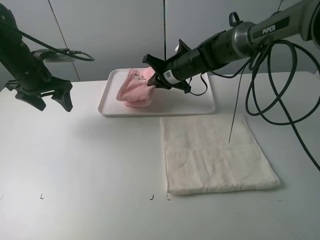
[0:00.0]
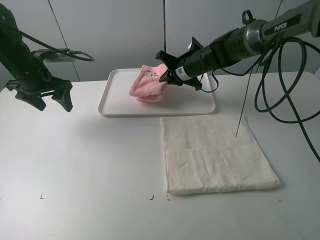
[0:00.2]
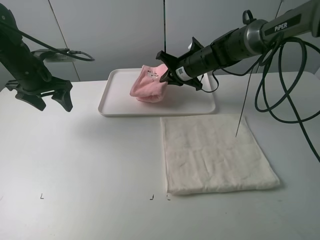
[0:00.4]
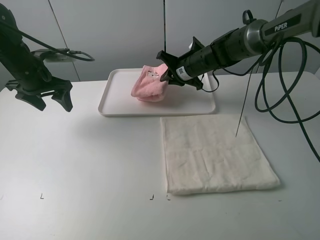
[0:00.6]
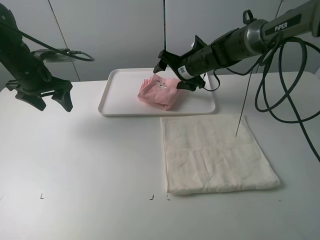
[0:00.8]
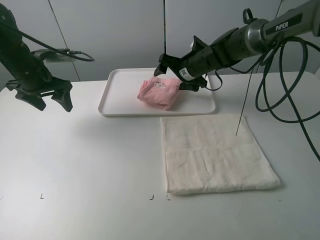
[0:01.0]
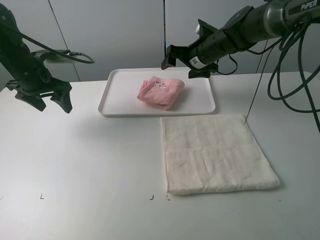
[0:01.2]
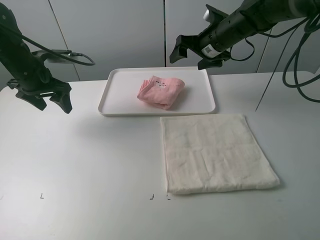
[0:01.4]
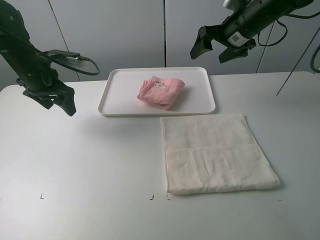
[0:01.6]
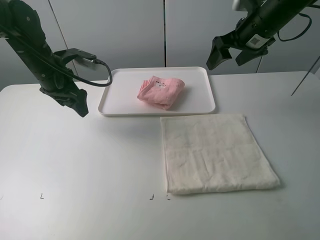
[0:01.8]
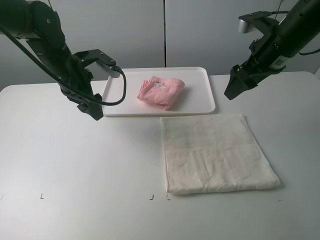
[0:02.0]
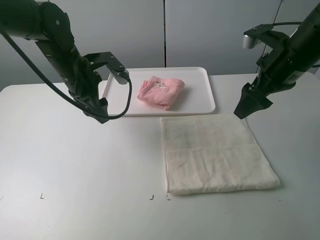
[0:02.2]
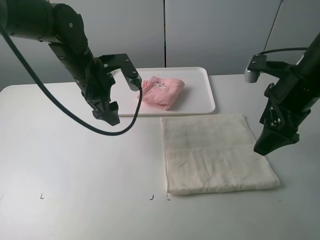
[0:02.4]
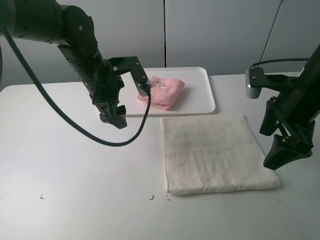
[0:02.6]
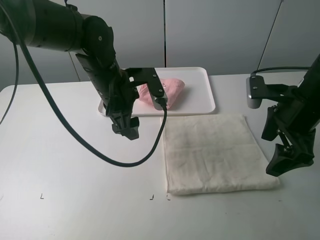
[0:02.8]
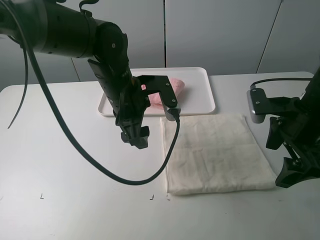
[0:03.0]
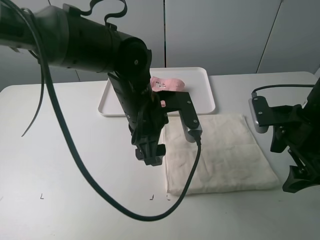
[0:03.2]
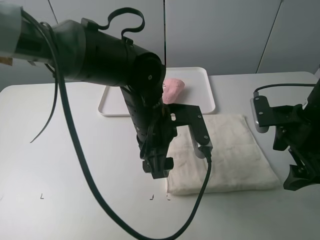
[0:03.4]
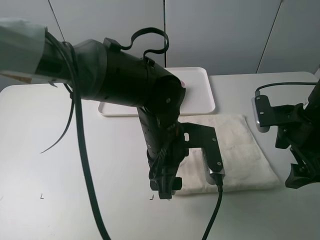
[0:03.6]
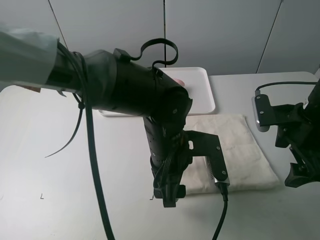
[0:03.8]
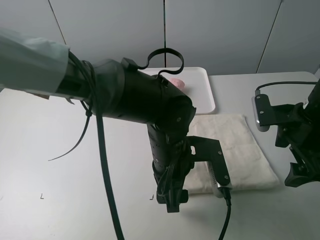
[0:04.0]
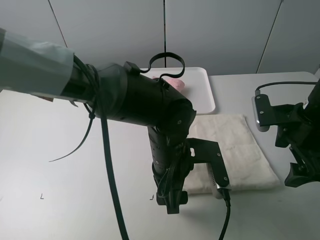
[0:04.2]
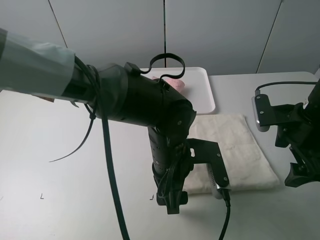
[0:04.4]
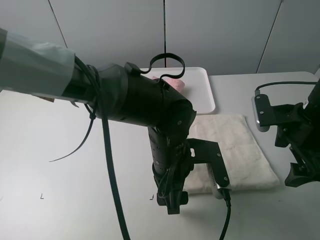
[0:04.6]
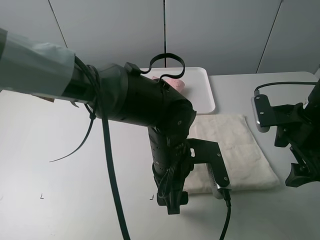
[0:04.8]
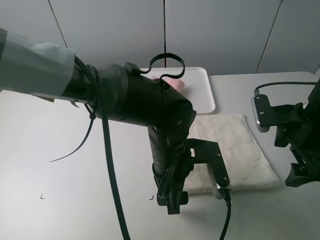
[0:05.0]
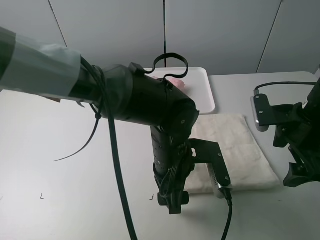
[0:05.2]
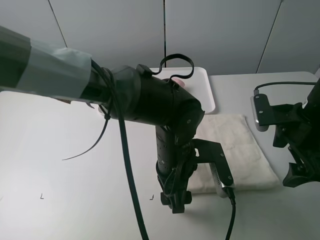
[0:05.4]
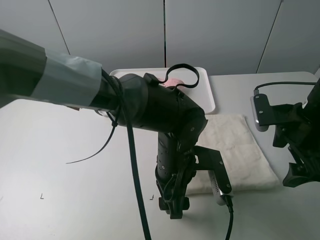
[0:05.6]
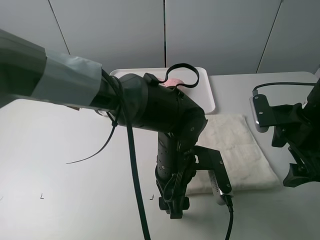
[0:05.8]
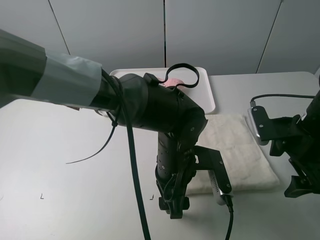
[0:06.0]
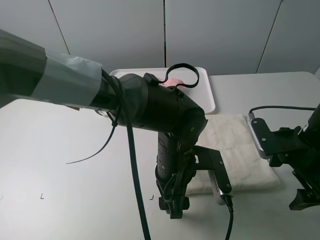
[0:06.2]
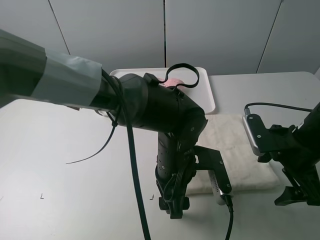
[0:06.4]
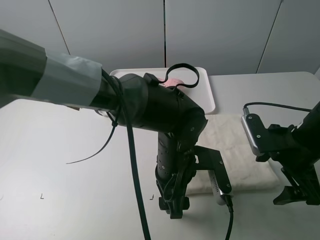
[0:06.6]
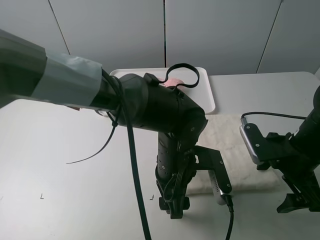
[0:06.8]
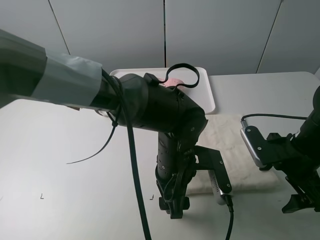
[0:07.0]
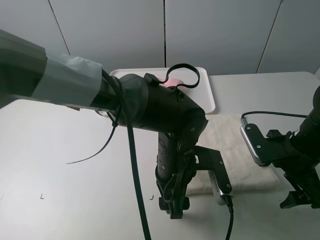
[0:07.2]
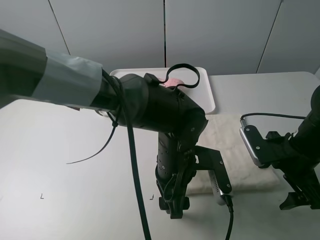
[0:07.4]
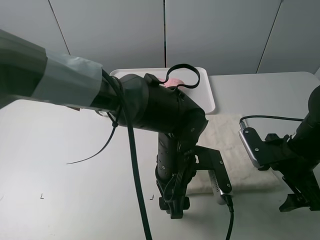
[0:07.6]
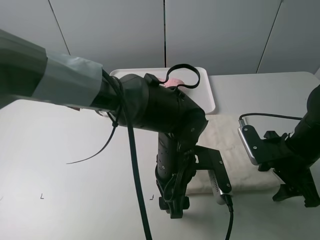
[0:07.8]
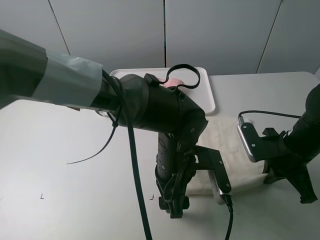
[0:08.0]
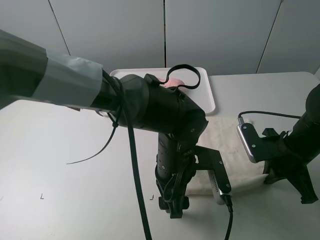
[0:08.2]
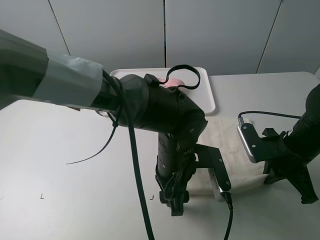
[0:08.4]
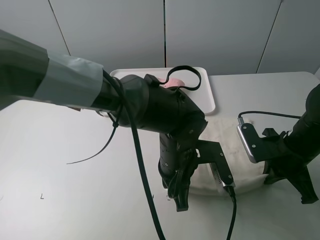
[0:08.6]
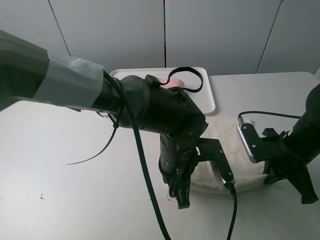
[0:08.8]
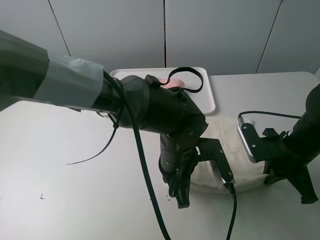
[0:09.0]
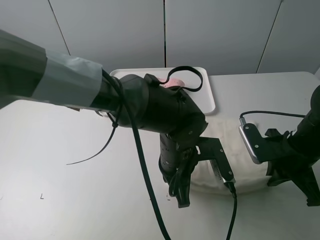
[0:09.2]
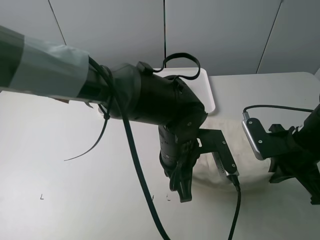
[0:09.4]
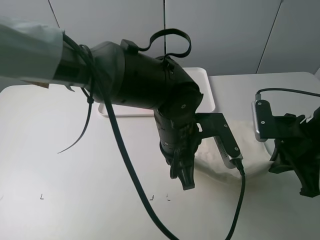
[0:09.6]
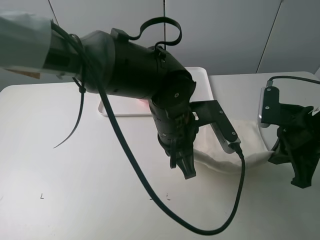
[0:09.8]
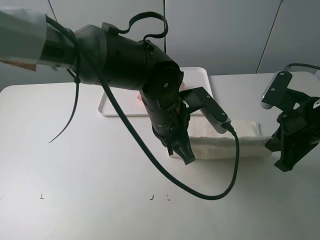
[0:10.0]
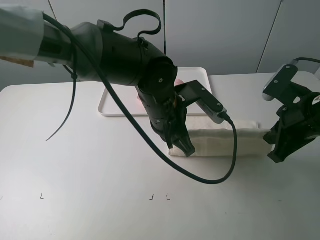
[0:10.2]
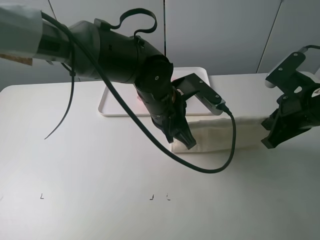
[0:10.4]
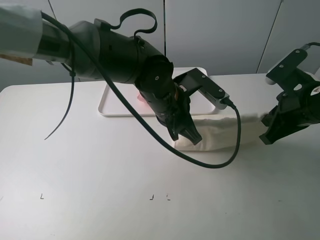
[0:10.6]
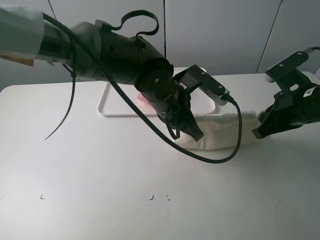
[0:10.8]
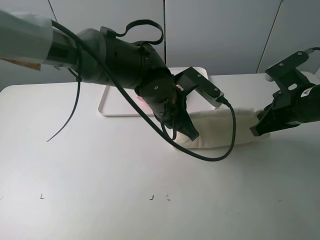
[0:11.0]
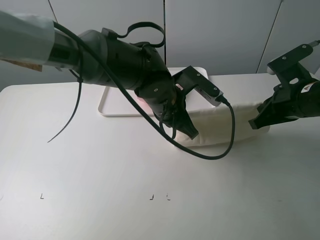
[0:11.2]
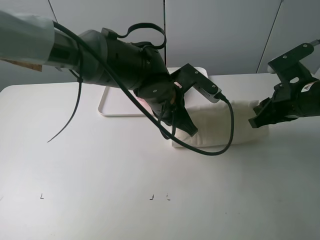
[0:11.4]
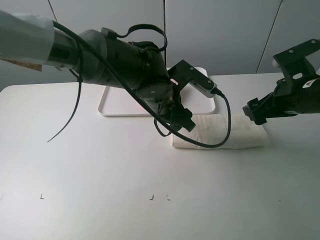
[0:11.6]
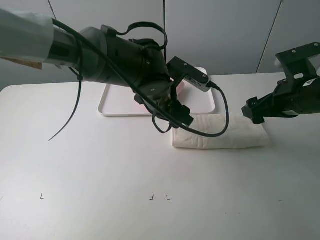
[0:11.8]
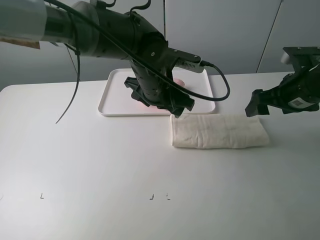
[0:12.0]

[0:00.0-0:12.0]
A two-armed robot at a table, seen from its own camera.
Task of the whole recording: fold one of the towels by two grippers and place it on the tray,then fold another towel by two grippers and place it on the folded towel.
Step, 0:00.0 to 0:00.8: Move the pink towel to the plate with the right gripper.
Step, 0:01.0 to 0:08.8: Grasp the white towel with the left gripper.
Step, 0:09.0 to 0:11.6: Fold the white towel upwards with the left gripper.
0:00.0 to 0:01.6: The right gripper is displaced to the right and upward by approximately 15 cm, and opens up.
0:01.6 to 0:03.0: The right gripper shifts some 20 cm backward. The left gripper shifts roughly 20 cm to the right and backward.
0:03.0 to 0:04.4: The left gripper is displaced backward, to the right and downward by roughly 15 cm.
0:04.4 to 0:07.6: The grippers stay close to where they were, moving slightly.
0:07.6 to 0:09.0: The right gripper closes its fingers. Meanwhile the left gripper closes.
0:09.0 to 0:10.4: The right gripper moves upward, roughly 10 cm; the left gripper heads forward and upward, covering approximately 10 cm.
0:10.4 to 0:12.0: Both grippers move forward, roughly 5 cm. The right gripper opens, while the left gripper opens up.

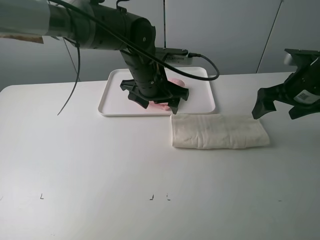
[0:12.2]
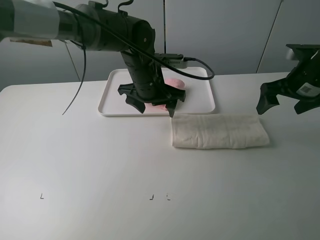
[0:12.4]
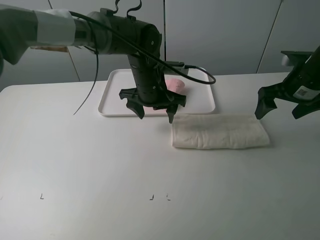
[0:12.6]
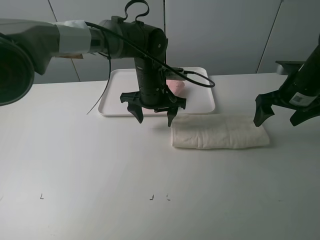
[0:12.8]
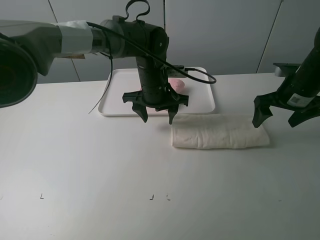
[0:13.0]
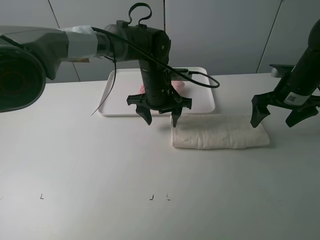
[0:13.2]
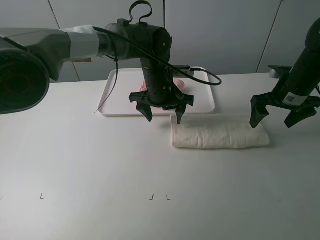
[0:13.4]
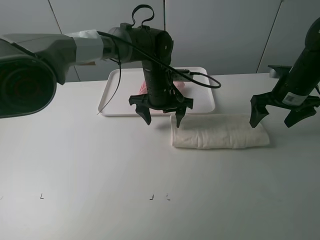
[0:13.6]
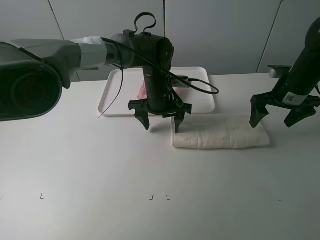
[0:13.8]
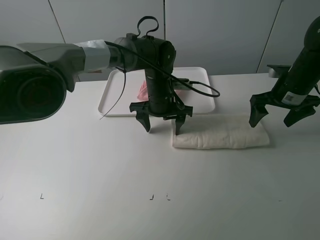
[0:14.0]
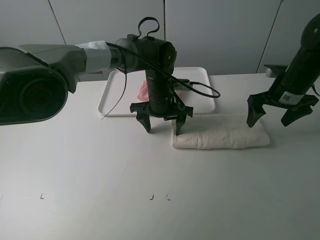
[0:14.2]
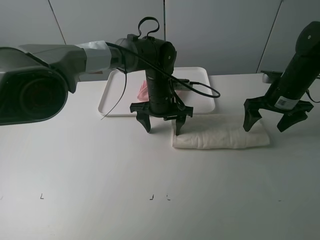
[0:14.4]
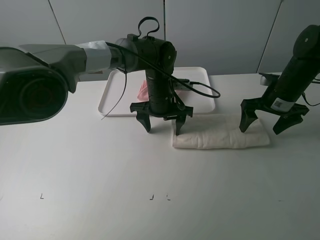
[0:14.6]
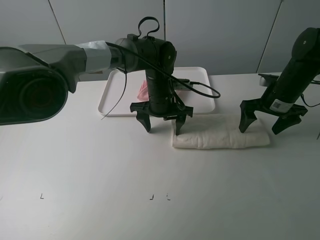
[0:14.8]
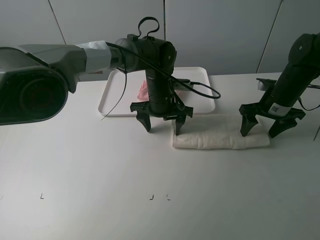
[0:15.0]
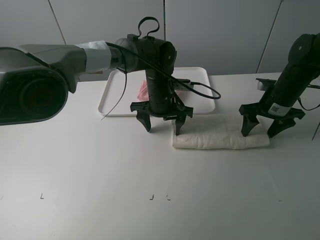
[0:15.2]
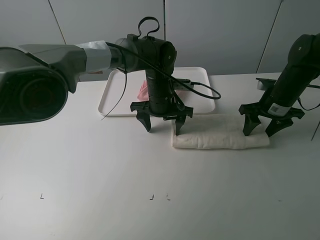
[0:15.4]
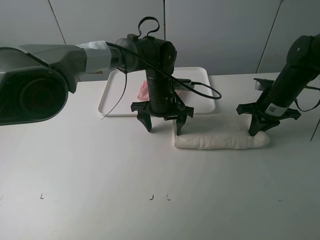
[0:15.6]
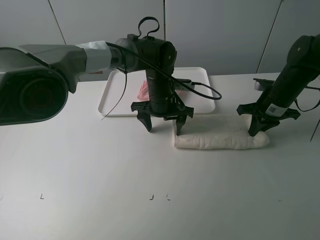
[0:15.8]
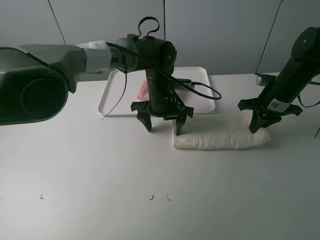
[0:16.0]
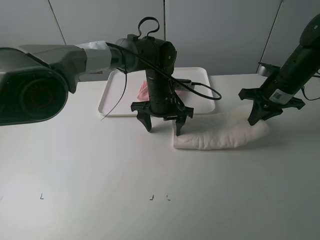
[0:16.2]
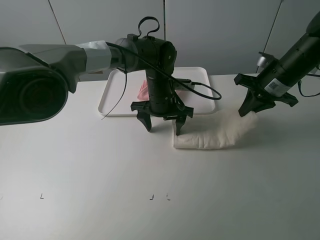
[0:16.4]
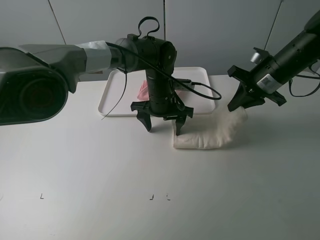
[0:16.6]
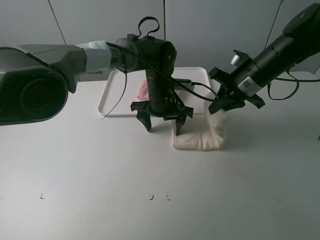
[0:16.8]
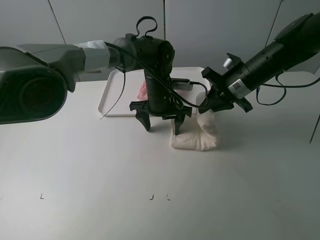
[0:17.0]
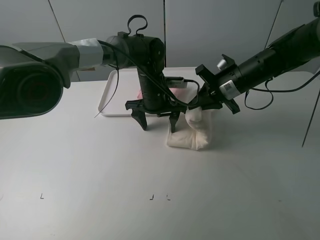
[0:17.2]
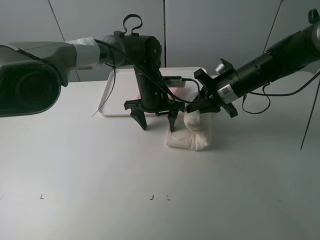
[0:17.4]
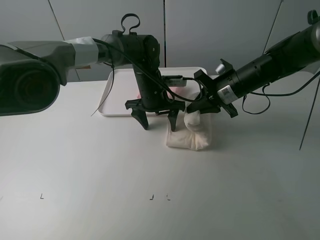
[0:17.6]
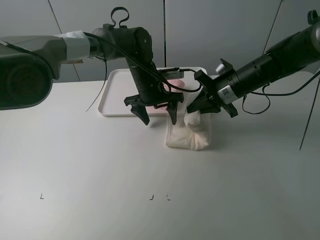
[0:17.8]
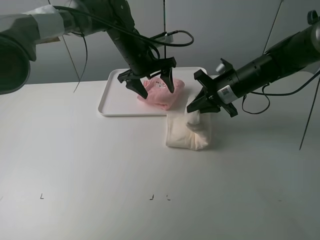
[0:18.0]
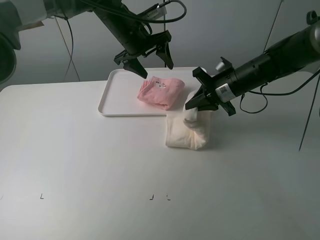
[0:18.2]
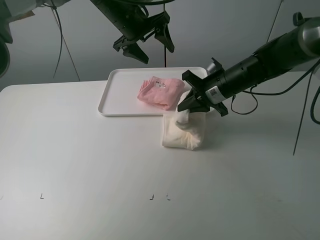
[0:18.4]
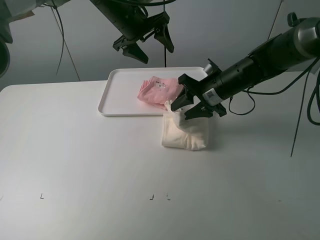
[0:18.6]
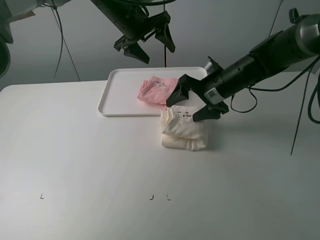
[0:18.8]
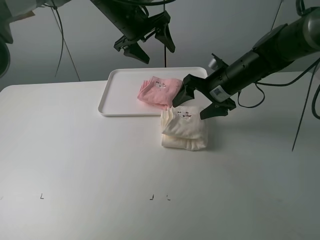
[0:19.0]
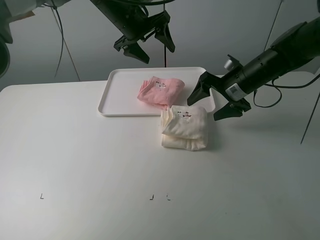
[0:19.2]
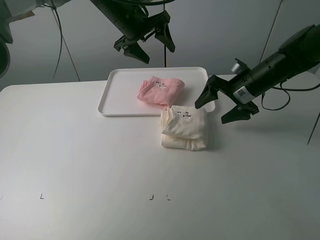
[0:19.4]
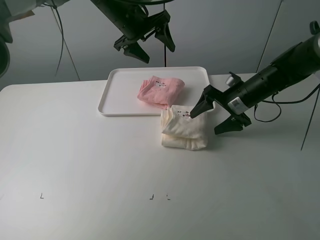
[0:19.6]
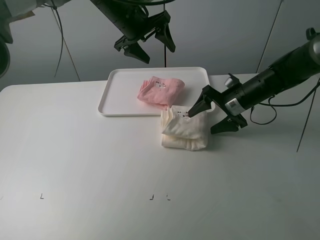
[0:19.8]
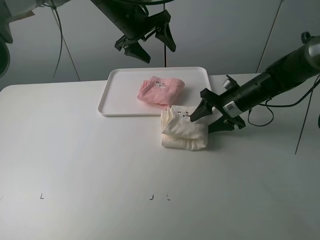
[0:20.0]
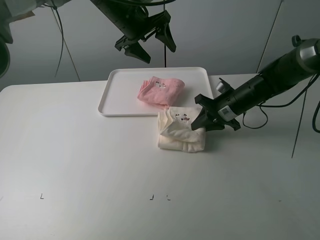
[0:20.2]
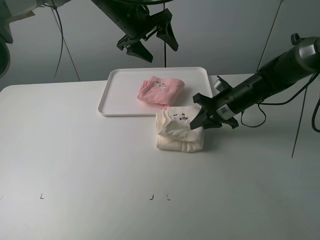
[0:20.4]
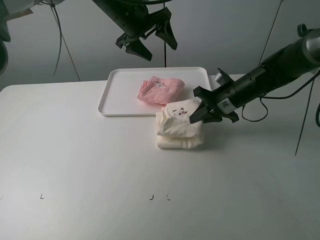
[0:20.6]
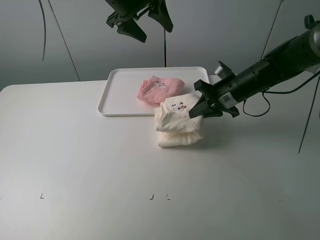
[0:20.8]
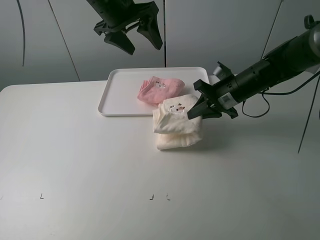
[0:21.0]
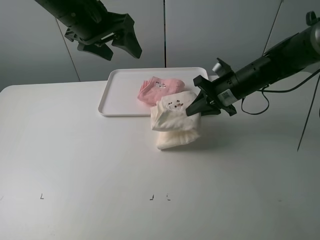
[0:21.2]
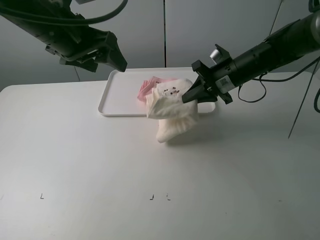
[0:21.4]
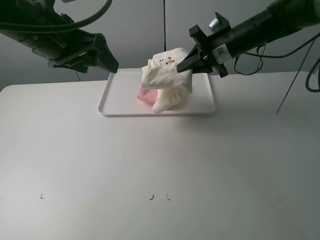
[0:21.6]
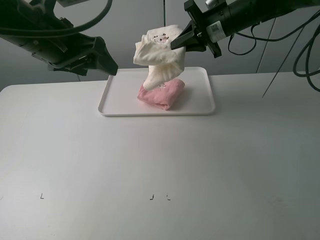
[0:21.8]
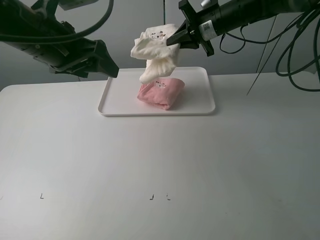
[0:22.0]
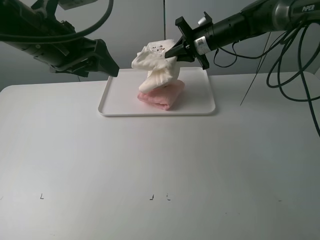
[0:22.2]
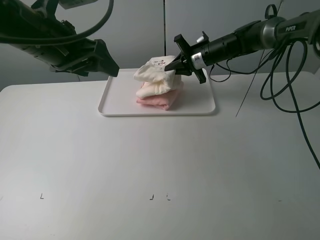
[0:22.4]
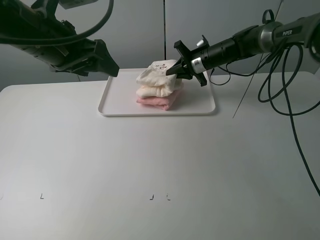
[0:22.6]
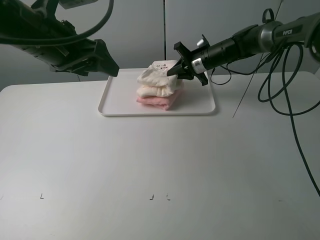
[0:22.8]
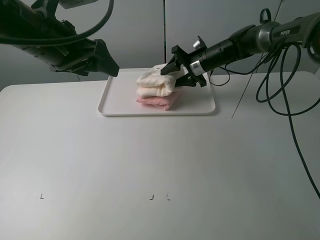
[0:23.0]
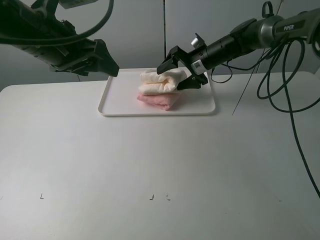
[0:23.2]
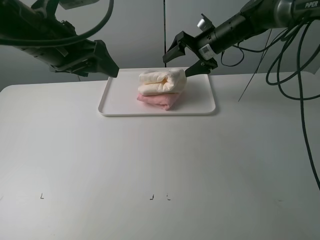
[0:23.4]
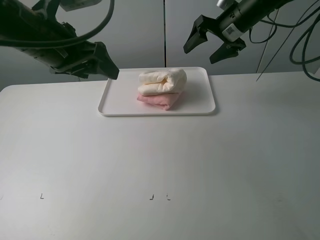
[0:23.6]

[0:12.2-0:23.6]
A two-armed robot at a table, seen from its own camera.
Task of the whole recording: fold one of the towels by two grippers and place it on the tray,then fold another towel by two grippers and place it on the folded towel.
Step, 0:12.2 to 0:14.6: Press the white towel with the left gripper.
Step, 0:14.8 to 0:15.6: Grasp the white towel with the right gripper.
Step, 0:15.8 to 0:19.0: Fold the white towel from right to left with right gripper.
Step, 0:19.2 to 0:20.2: Grasp the white towel with the right gripper.
Step, 0:20.4 to 0:23.2: Place the white towel on the pink towel with the right gripper.
0:12.2 to 0:13.6: The right gripper shifts by roughly 5 cm, while the left gripper goes some 5 cm downward.
0:13.6 to 0:15.0: The grippers stay close to where they were, moving slightly.
0:15.0 to 0:16.4: The right gripper moves upward, some 5 cm, and closes up.
0:16.4 to 0:17.8: The right gripper shifts some 10 cm to the left. Meanwhile the left gripper changes place by roughly 5 cm.
0:17.8 to 0:19.4: The left gripper heads upward, covering about 15 cm. The right gripper opens its fingers.
0:19.4 to 0:20.8: The right gripper closes its fingers; the left gripper travels upward by some 5 cm.
0:20.8 to 0:22.2: The right gripper is displaced forward and upward by some 15 cm, while the left gripper shifts roughly 15 cm backward and to the left.
0:22.2 to 0:23.6: The right gripper goes roughly 10 cm upward and to the right, and opens up.
